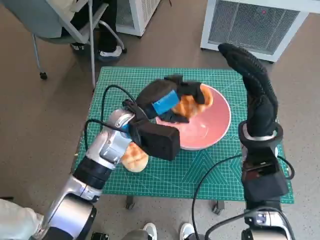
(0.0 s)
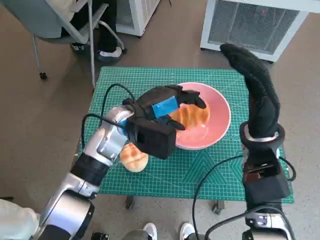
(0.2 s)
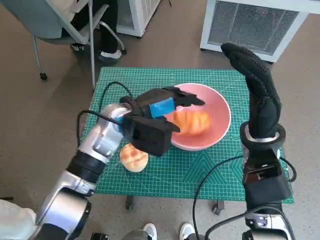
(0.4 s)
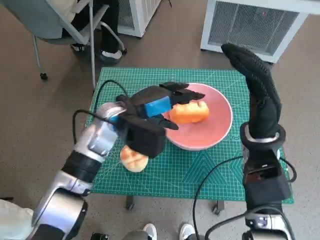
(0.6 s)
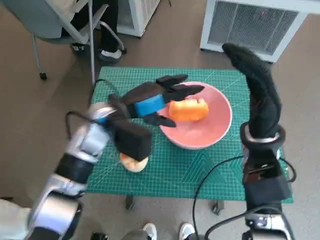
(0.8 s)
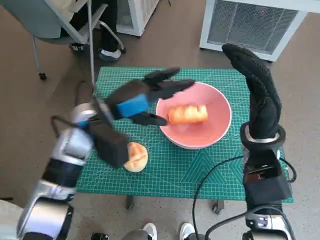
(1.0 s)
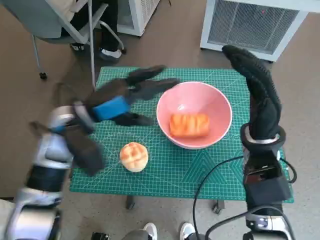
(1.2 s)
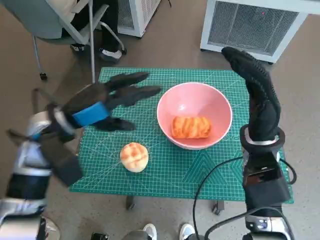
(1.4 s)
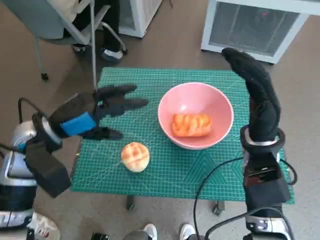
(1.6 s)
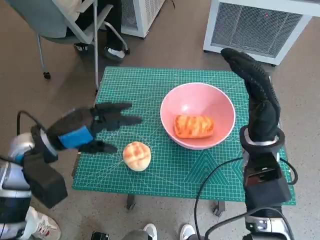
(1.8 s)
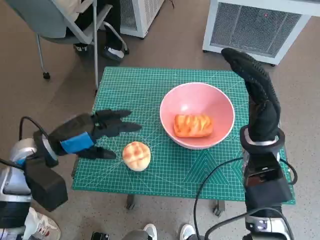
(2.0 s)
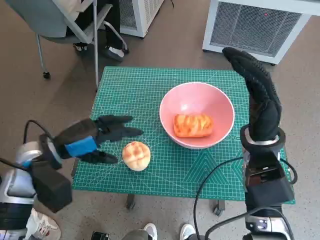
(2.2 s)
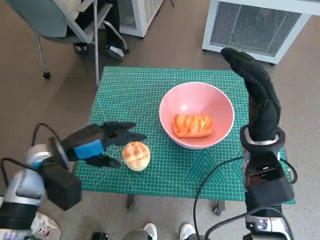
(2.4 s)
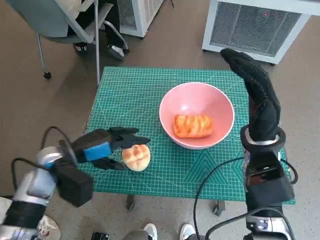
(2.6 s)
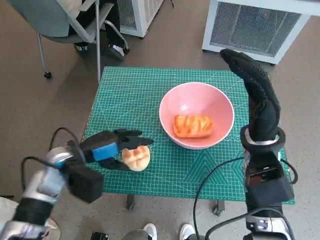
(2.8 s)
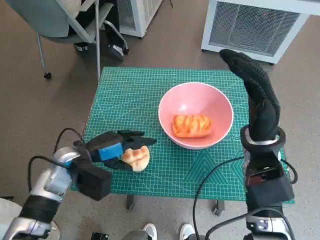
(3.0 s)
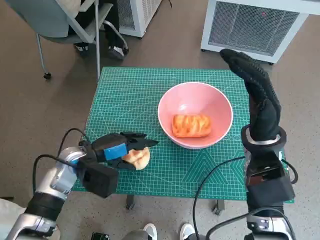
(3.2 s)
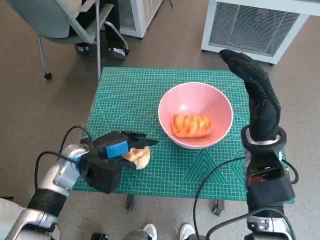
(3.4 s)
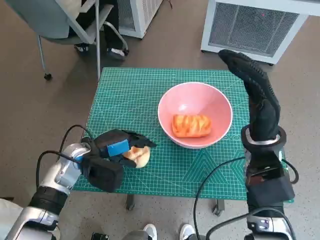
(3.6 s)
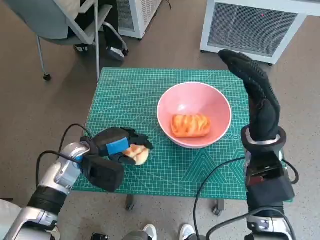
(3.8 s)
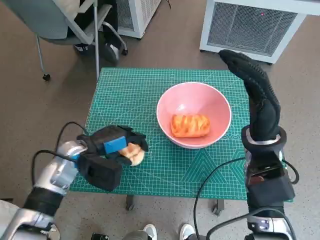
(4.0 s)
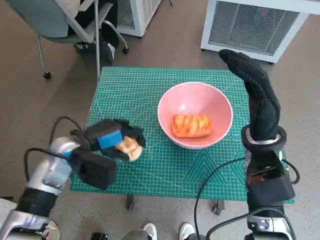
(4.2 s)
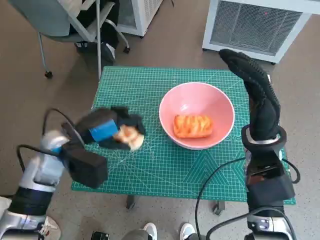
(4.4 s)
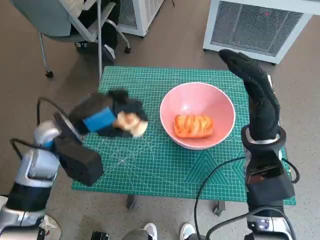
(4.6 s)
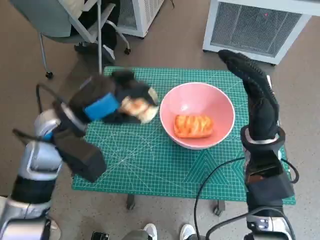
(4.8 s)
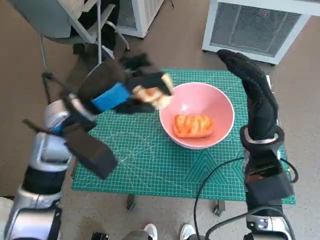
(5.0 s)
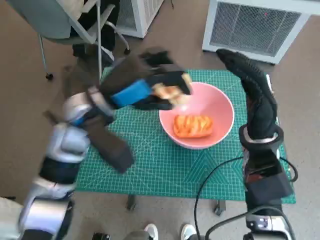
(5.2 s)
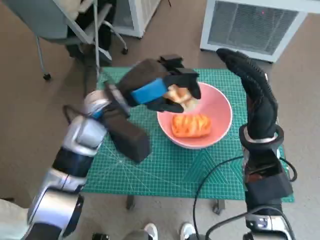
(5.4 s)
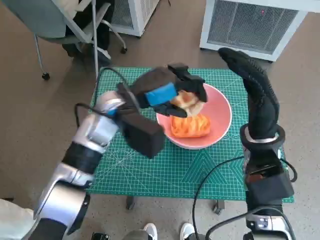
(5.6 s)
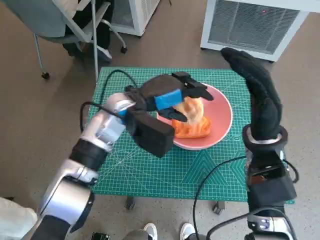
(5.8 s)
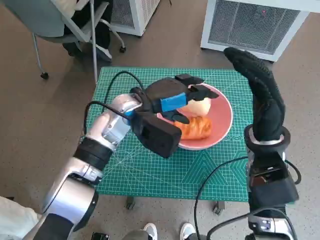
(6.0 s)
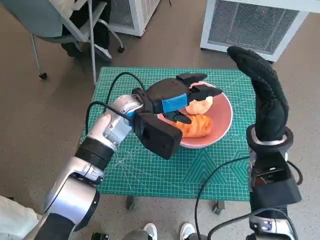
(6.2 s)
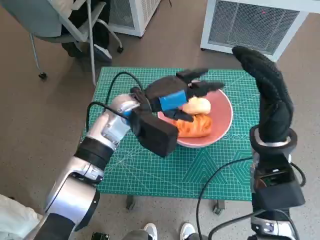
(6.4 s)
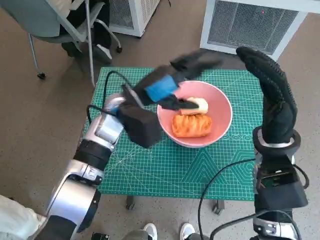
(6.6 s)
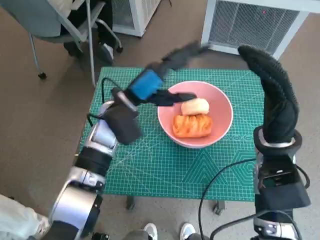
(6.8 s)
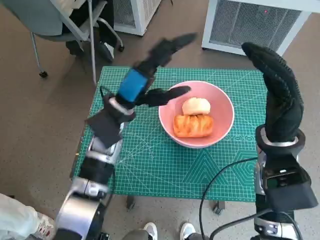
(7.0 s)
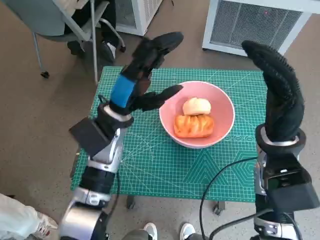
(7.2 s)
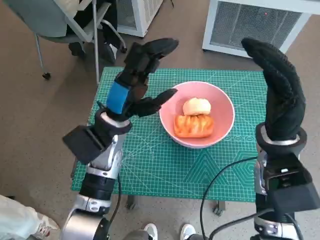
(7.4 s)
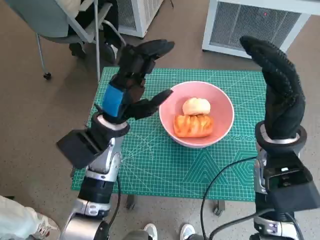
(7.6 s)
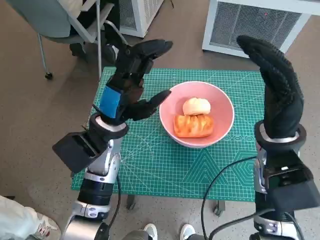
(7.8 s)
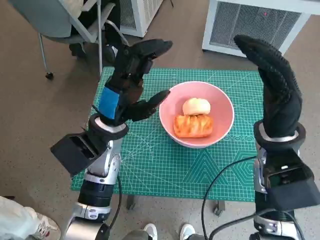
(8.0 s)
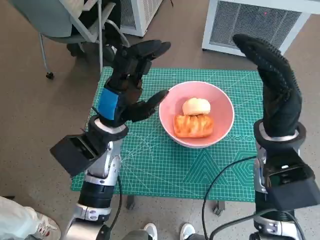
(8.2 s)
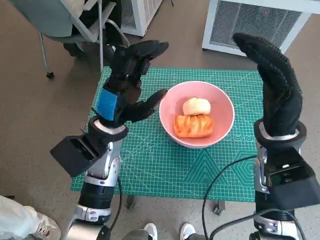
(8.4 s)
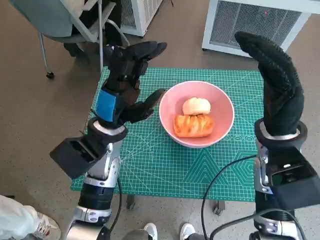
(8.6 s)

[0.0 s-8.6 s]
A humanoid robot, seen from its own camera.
Task of the whole recording: Push the bowl to the center of the table and put the bread into the bowl.
Step, 1.2 to 3.8 s: Grasp the round bread with left hand.
Step, 4.0 to 6.6 s: Place the round bread in pink bowl with left hand.
0.0 to 1.4 s: The left hand moves to the left, some 10 cm.
1.4 to 2.8 s: The left hand moves downward, some 10 cm.
2.8 to 4.4 s: The hands stay close to where they were, moving slightly.
4.4 to 5.8 s: The left hand travels to the right and forward by about 15 cm.

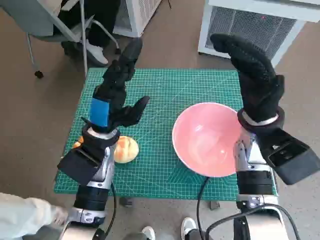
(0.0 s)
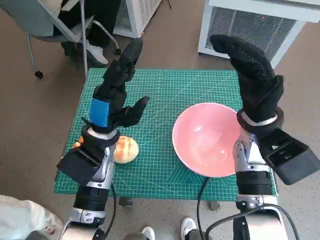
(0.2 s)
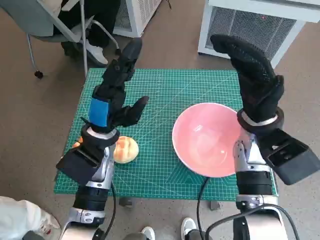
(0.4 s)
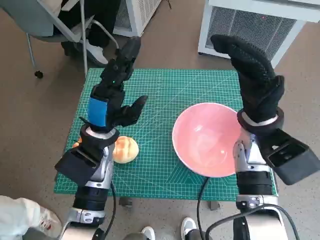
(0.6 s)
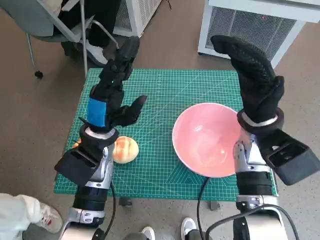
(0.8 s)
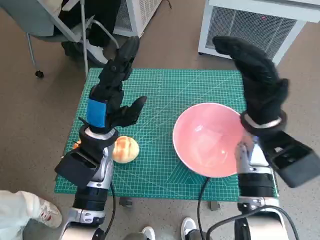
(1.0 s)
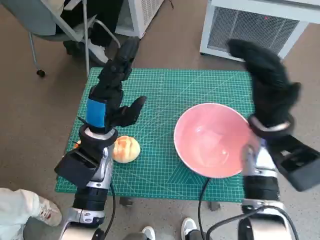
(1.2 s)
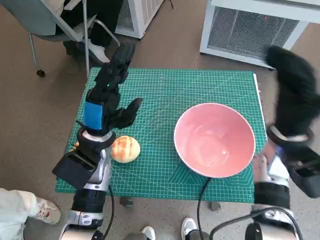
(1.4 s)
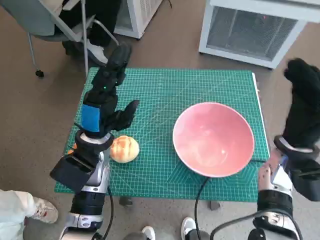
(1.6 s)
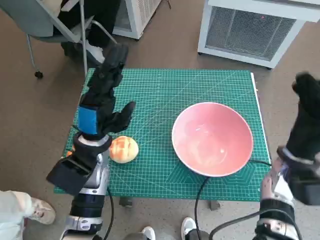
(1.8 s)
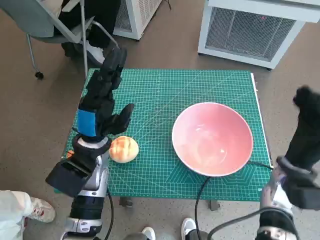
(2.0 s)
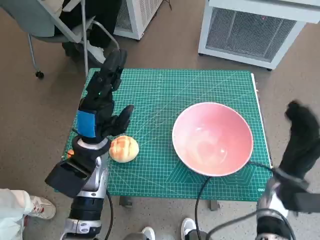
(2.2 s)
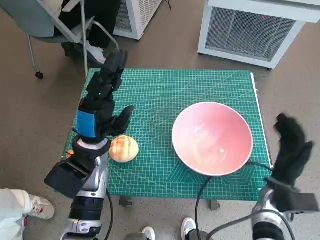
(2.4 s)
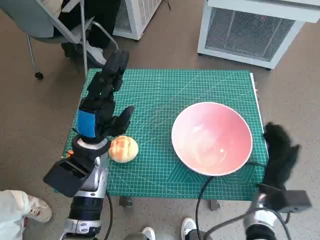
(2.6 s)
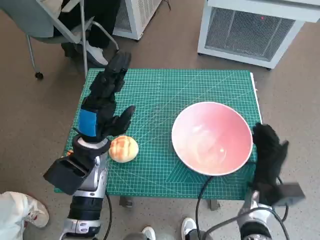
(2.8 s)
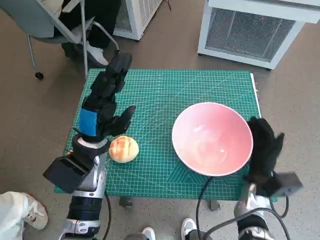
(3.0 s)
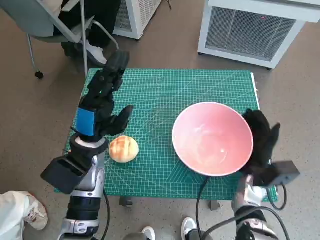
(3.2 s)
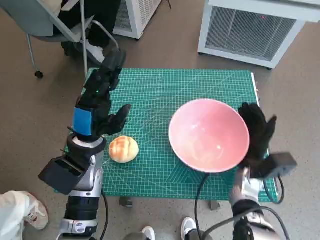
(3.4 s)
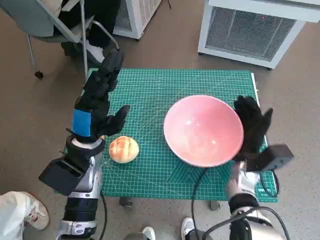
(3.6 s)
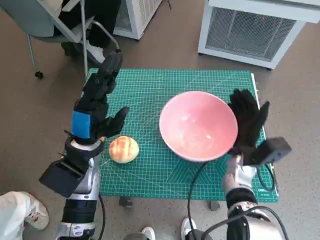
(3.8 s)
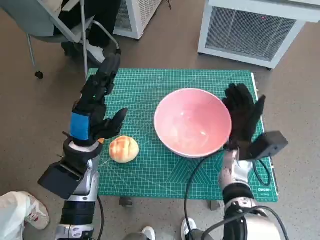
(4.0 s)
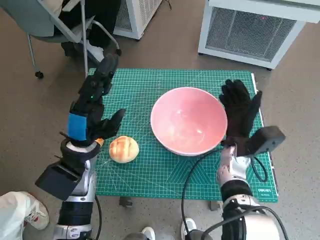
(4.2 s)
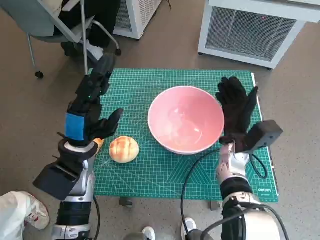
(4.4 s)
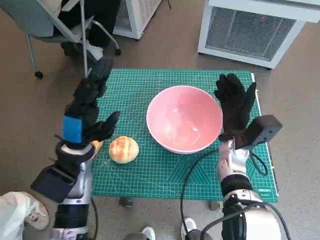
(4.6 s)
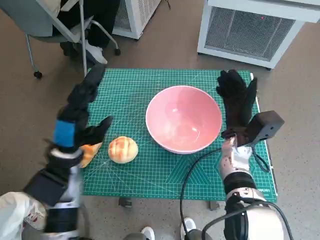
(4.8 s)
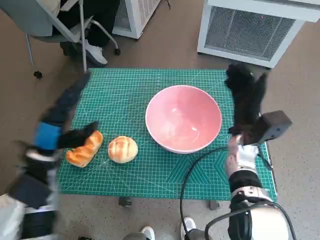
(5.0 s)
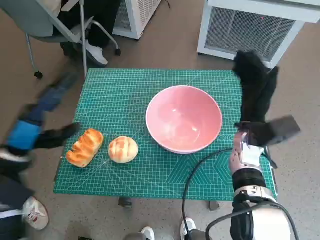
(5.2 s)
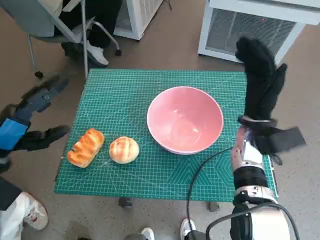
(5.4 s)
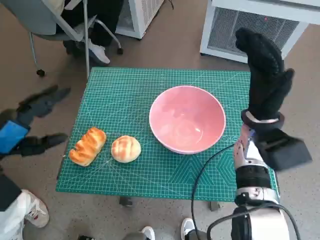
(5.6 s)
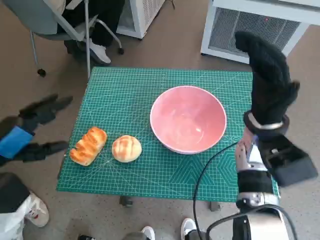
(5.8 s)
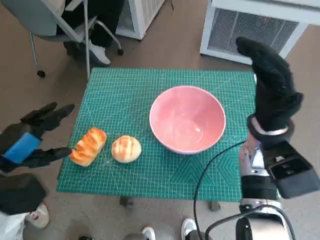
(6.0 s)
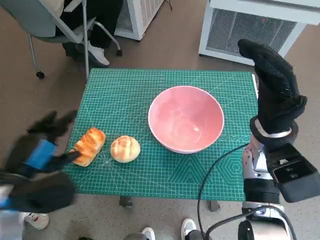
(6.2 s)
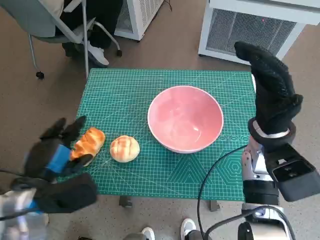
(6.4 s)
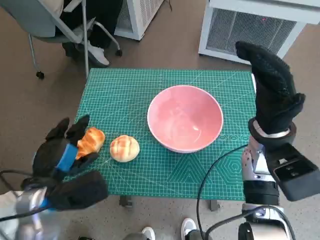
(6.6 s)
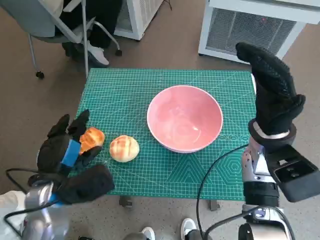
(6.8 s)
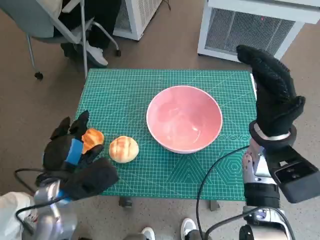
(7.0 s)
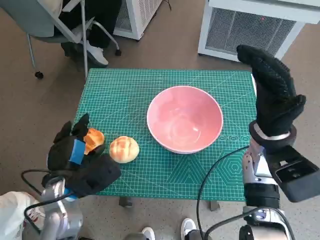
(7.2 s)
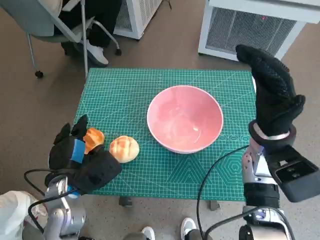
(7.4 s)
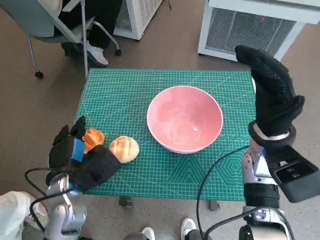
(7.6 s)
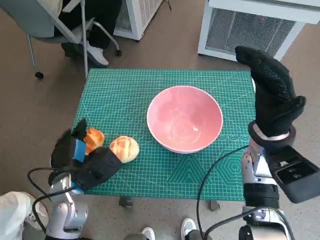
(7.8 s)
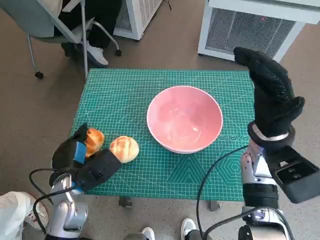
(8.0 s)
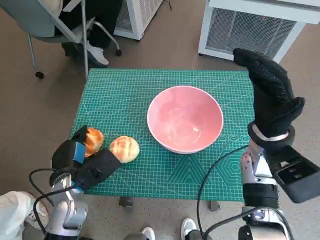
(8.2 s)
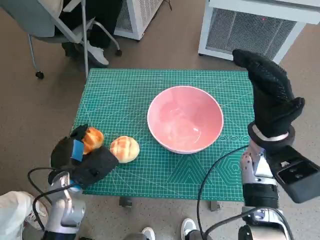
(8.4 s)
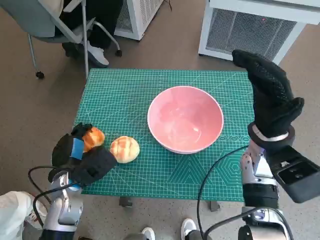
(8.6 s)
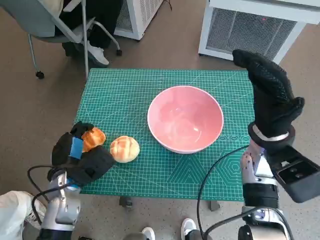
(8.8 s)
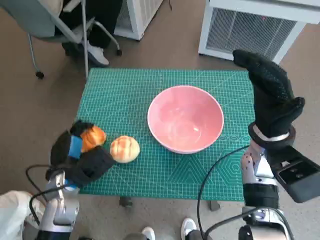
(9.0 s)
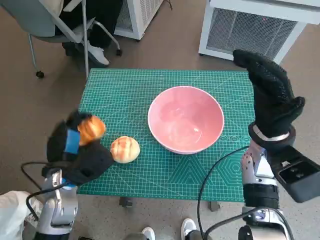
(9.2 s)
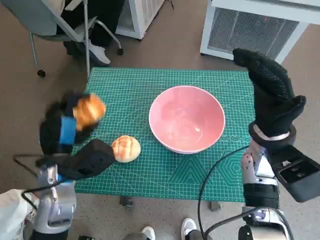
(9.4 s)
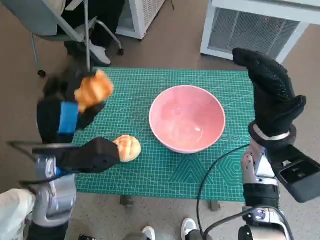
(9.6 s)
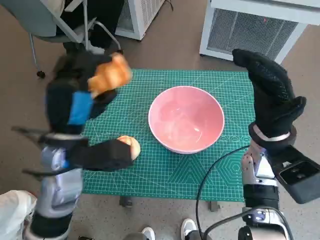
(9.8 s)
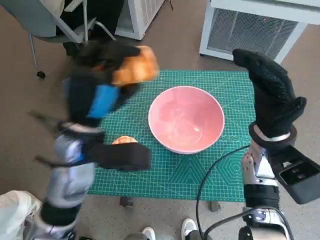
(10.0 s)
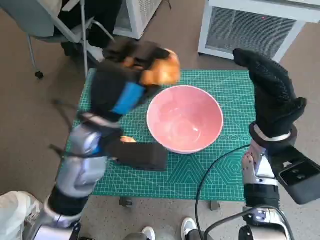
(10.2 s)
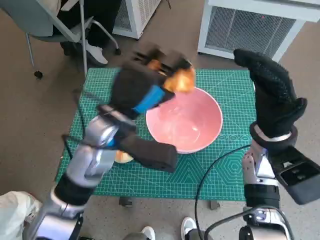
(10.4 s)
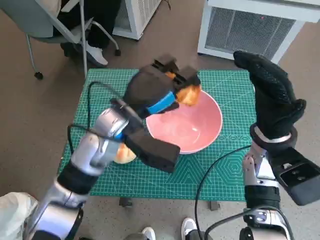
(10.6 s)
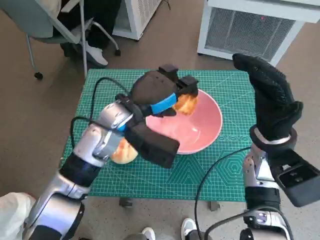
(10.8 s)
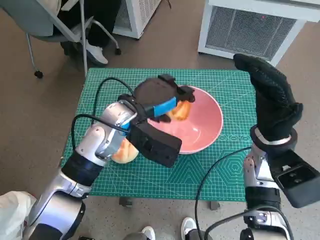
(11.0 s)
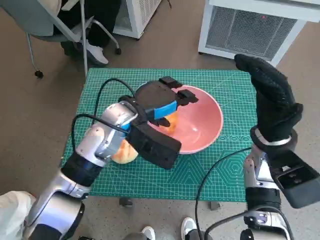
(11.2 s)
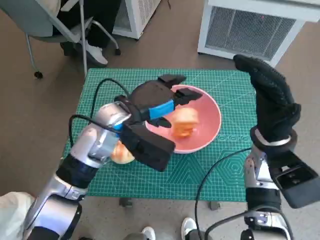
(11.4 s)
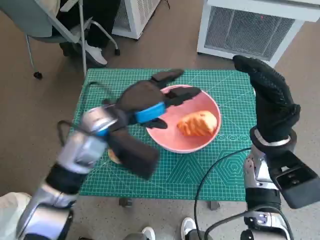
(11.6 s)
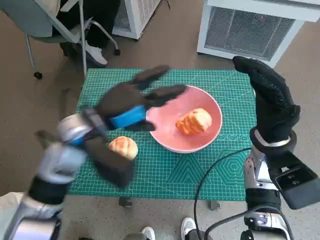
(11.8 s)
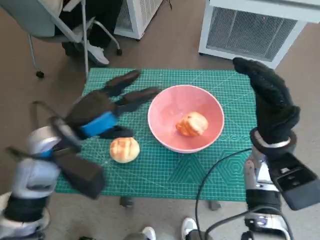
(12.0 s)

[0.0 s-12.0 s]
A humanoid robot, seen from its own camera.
Task of the whole recording: Push the bowl to the center of the table and put the bread into the bowl.
Step, 0.0 to 4.8 s: Move the pink bowl to the center of table with right hand.
Step, 5.0 to 8.4 s: Grasp the long bread with left hand.
Step, 8.6 to 11.4 s: Place the long bread in pink bowl with left hand.
1.6 to 3.0 s: The right hand moves downward, some 15 cm.
3.0 to 4.4 s: The right hand is displaced forward, upward and to the left by some 10 cm.
4.4 to 6.0 s: The left hand is displaced to the left, backward and upward by some 15 cm, while the right hand is displaced upward by roughly 10 cm.
6.0 to 7.6 s: The left hand shifts some 15 cm downward and to the right.
7.6 to 9.0 s: The hands make only small movements.
9.0 to 10.4 s: The left hand heads upward and to the right, covering approximately 20 cm.
10.4 to 12.0 s: The left hand travels to the left by roughly 10 cm.

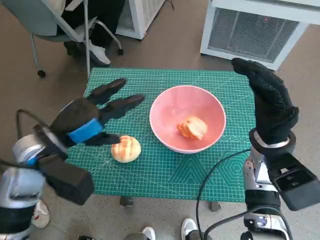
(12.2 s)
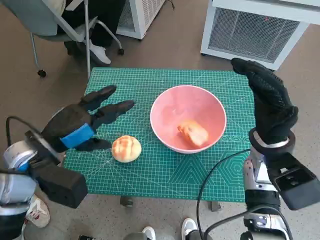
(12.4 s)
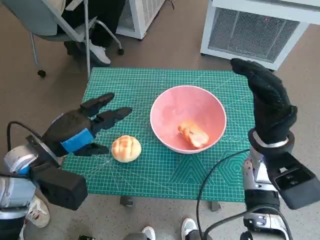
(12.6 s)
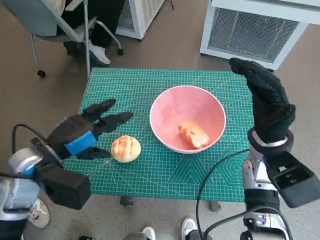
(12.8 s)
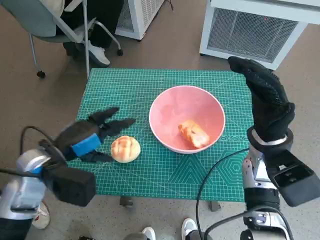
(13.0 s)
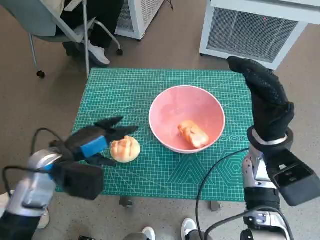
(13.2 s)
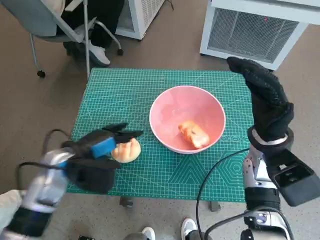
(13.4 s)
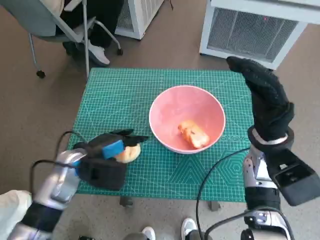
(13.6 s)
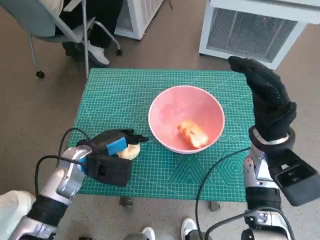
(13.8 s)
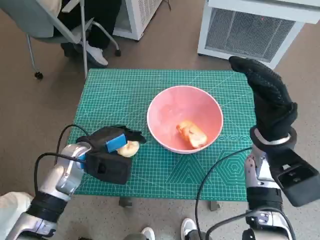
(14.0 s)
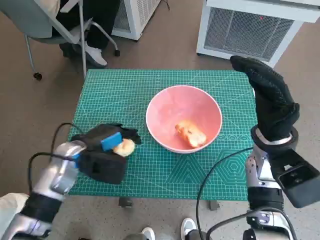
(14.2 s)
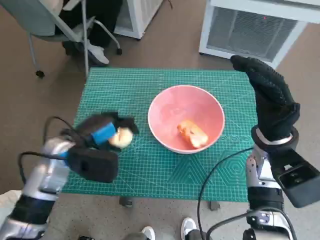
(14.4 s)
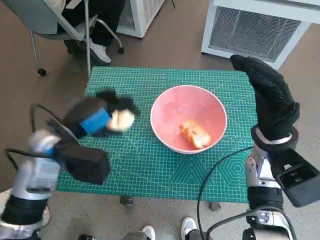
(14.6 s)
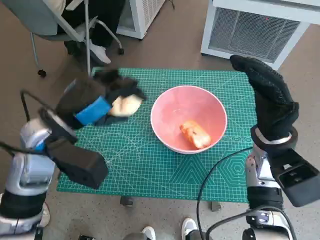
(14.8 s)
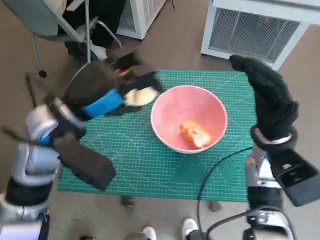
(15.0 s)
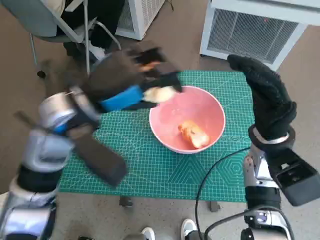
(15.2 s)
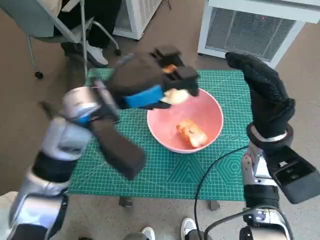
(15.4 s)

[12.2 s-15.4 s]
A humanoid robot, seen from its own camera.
Task of the whole recording: Push the bowl to the center of the table and put the bread into the bowl.
Step, 12.2 to 14.2 s: Grasp the round bread with left hand.
12.2 to 13.8 s: The left hand shifts some 10 cm downward.
13.8 to 15.4 s: The left hand heads upward and to the right, covering approximately 15 cm.
